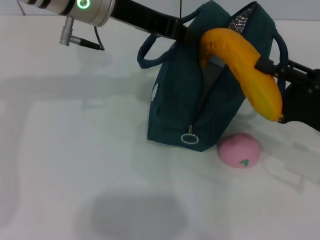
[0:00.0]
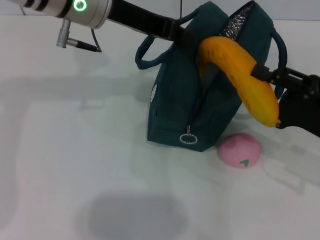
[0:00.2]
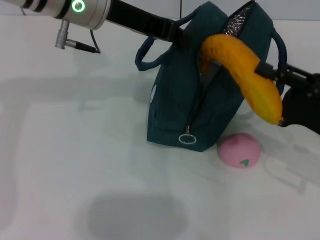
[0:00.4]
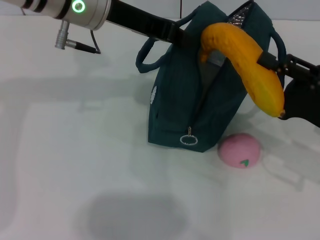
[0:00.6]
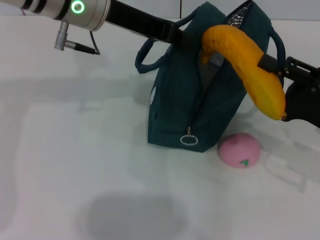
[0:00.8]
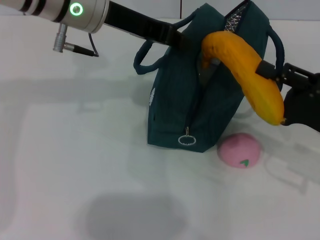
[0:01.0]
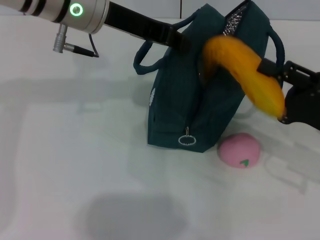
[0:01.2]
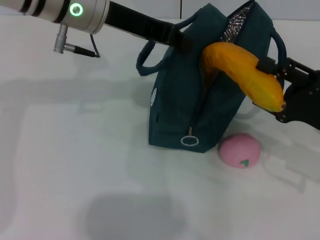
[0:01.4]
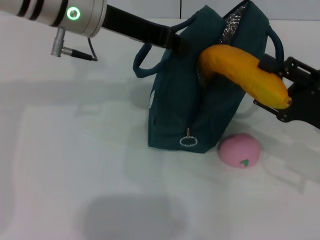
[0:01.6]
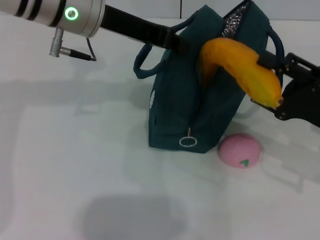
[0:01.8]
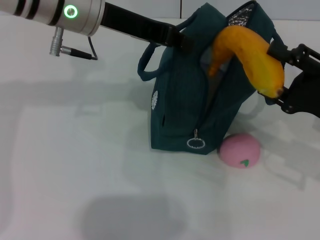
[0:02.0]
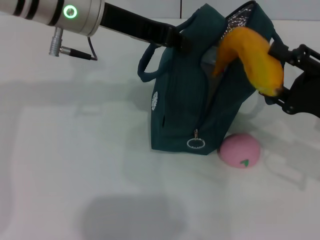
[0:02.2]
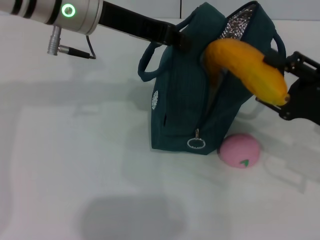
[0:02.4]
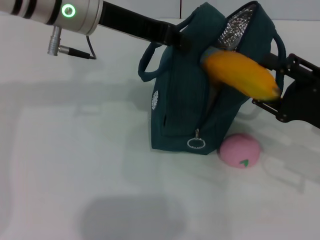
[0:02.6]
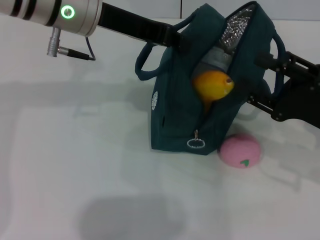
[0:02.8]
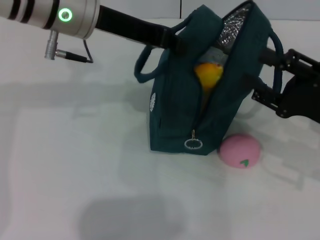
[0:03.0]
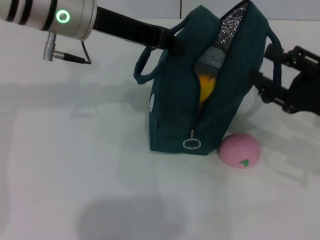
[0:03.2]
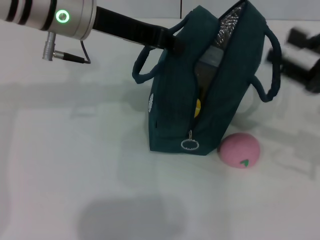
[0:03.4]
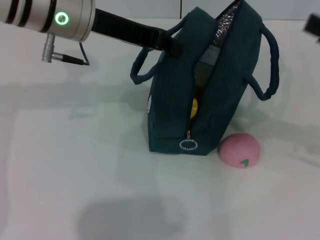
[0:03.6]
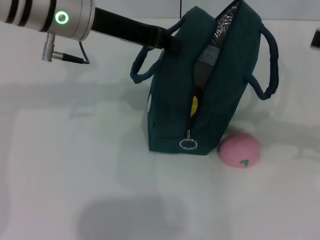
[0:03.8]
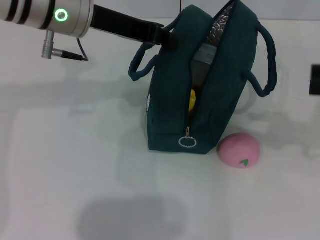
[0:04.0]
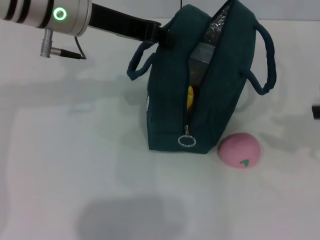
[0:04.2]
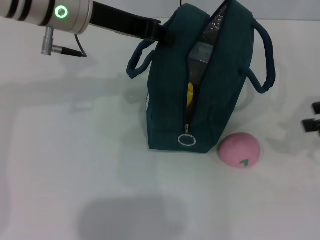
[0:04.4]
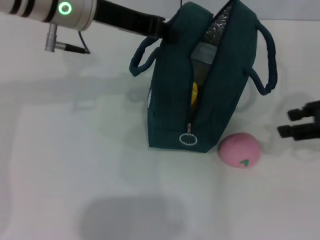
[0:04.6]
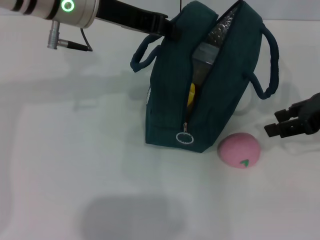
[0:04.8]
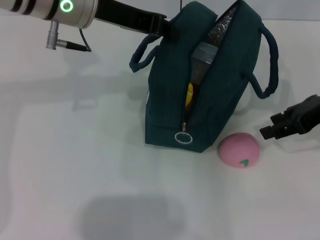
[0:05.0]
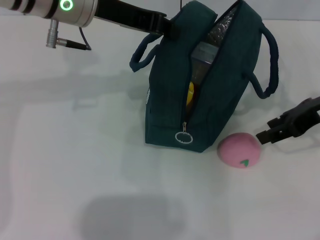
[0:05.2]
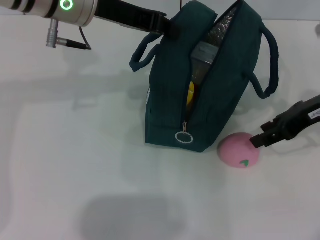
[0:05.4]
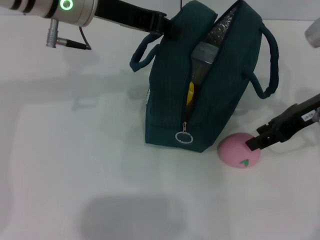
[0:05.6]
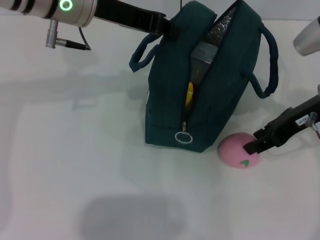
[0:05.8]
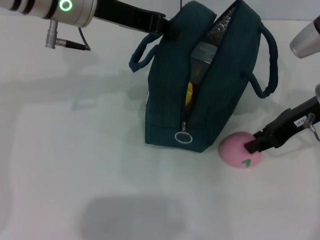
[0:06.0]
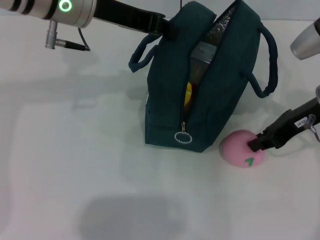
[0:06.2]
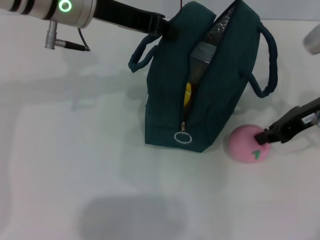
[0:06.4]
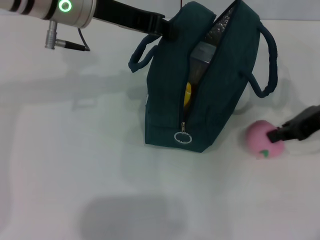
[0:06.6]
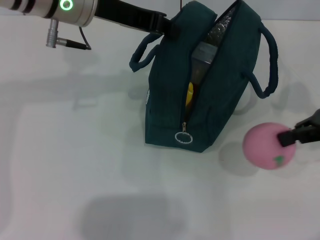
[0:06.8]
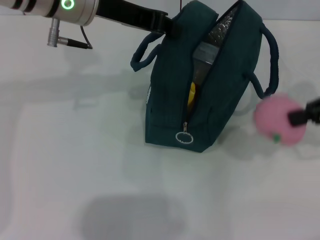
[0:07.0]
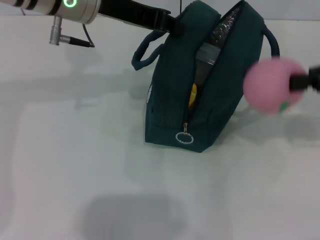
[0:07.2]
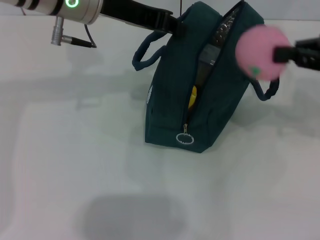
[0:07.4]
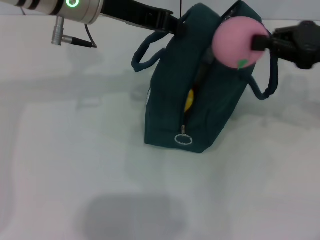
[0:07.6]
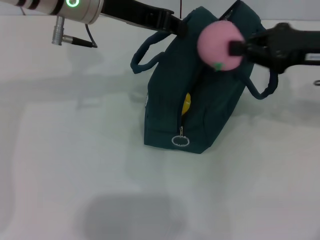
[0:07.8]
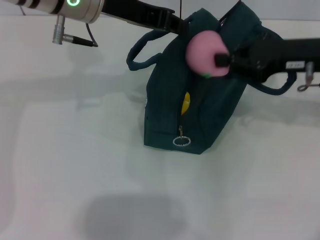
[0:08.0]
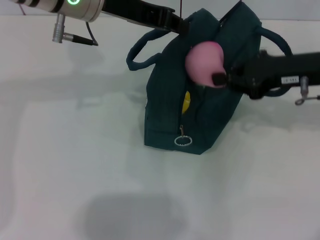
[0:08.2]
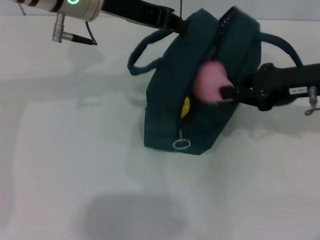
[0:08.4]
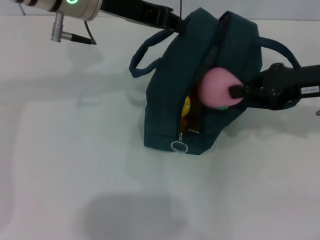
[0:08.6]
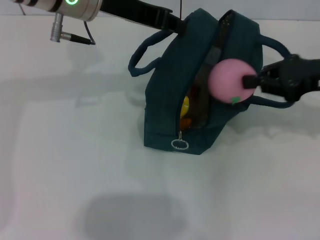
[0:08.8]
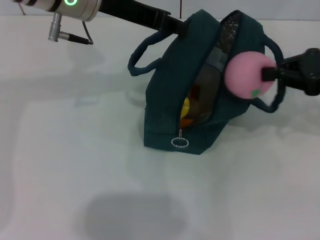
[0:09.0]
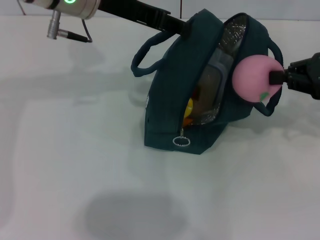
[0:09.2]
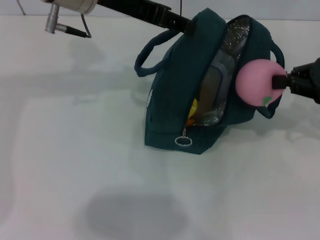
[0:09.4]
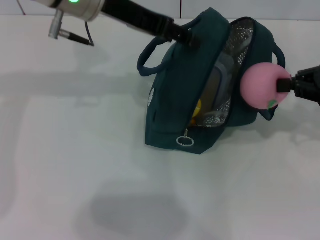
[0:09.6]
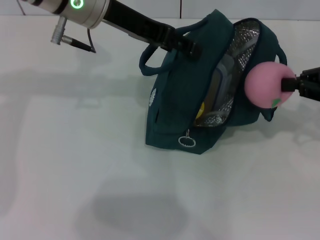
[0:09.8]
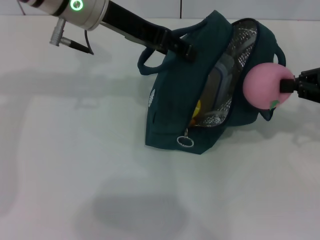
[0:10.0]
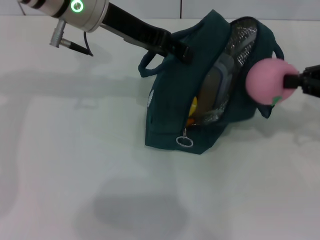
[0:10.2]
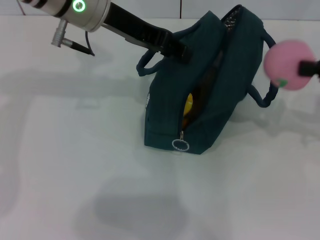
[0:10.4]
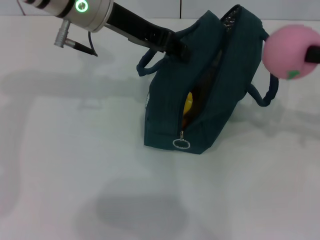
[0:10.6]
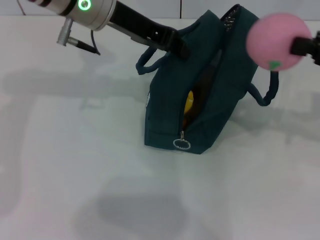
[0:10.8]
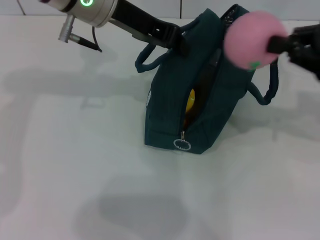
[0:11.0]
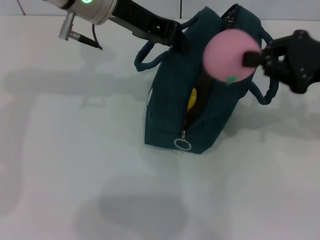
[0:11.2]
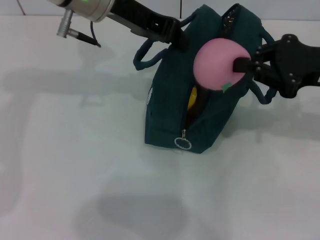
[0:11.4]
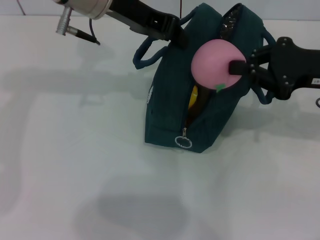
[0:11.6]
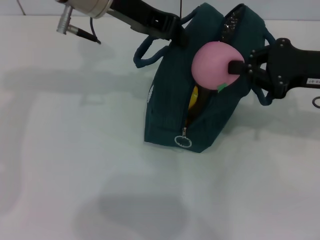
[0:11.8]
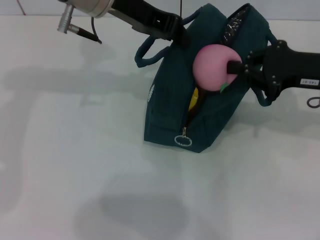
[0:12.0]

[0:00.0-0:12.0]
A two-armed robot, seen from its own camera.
Step, 0:00.0 to 0:03.6: Put the banana into the lunch bag with your right hand.
Step, 0:03.8 to 0:06.0: Grab the peach with your right hand.
0:00.0 to 0:03.0: There are only small adjustments of the grippers.
0:03.0 to 0:04.4: The right gripper goes about 10 cm upward and to the right.
0:04.4 to 0:06.0: The right gripper shifts approximately 10 cm to the left and forward.
0:06.0 to 0:07.6: The right gripper shifts some 5 cm to the right, and closes its fingers.
0:07.6 to 0:09.0: The grippers stay close to where they were, moving slightly.
0:09.0 to 0:10.4: The right gripper changes place by about 5 cm. Meanwhile the left gripper opens its fingers.
0:10.4 to 0:12.0: The left gripper closes up, while the right gripper shifts roughly 10 cm to the left.

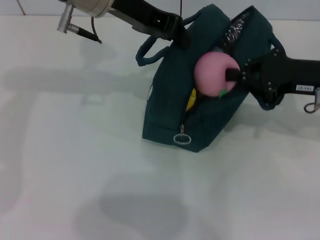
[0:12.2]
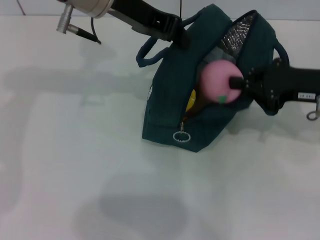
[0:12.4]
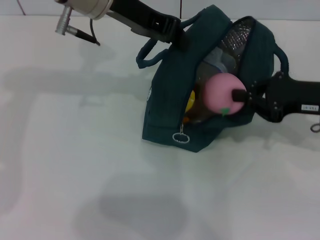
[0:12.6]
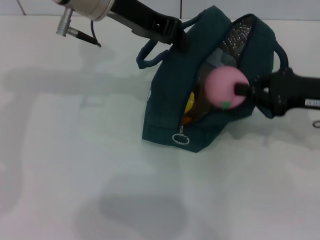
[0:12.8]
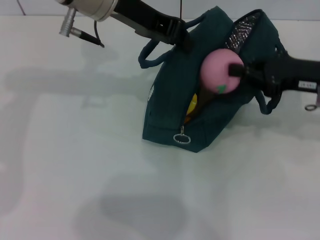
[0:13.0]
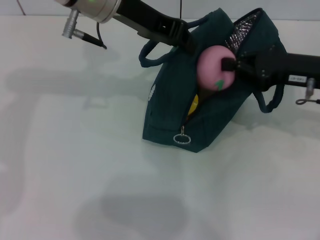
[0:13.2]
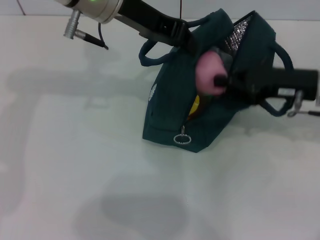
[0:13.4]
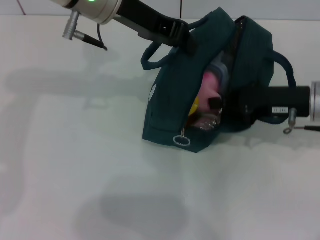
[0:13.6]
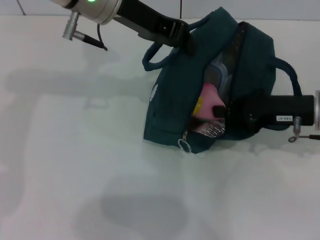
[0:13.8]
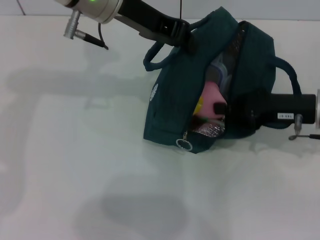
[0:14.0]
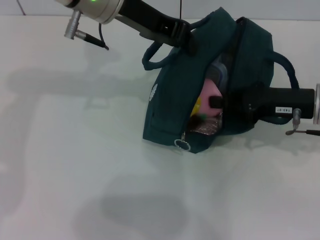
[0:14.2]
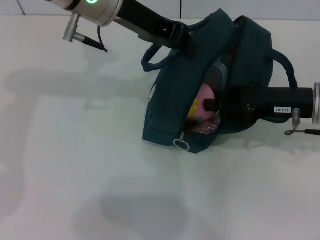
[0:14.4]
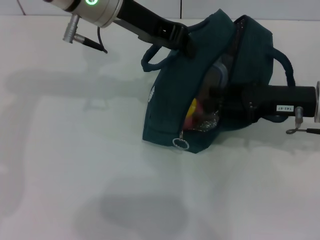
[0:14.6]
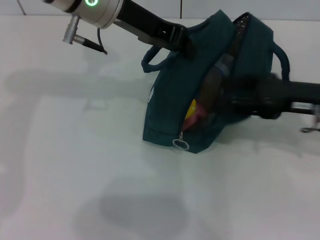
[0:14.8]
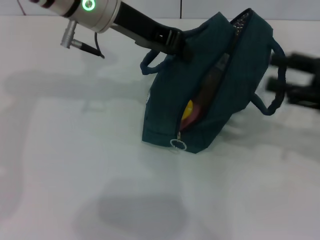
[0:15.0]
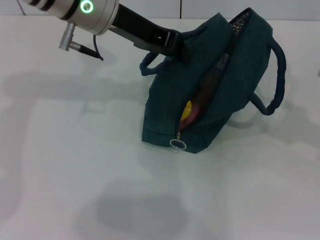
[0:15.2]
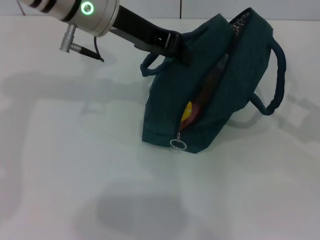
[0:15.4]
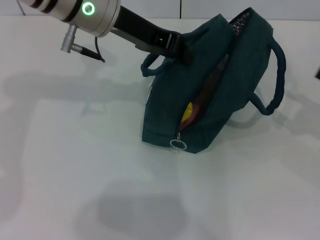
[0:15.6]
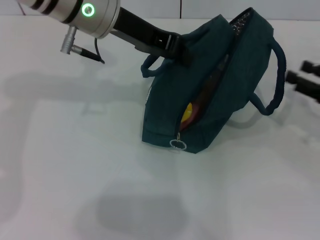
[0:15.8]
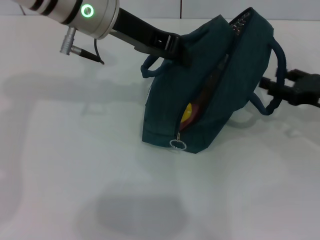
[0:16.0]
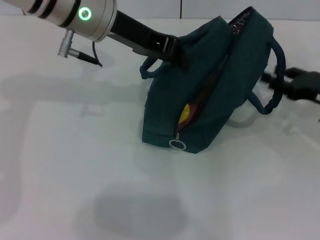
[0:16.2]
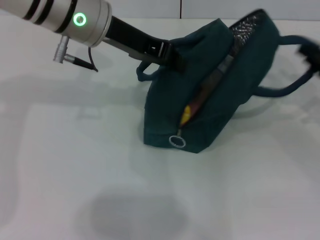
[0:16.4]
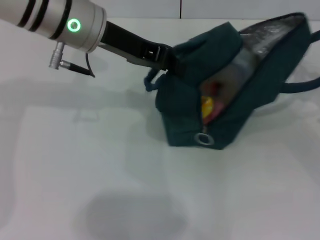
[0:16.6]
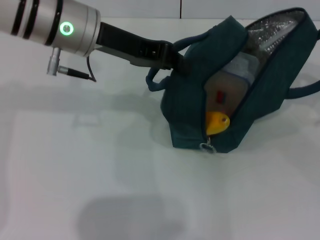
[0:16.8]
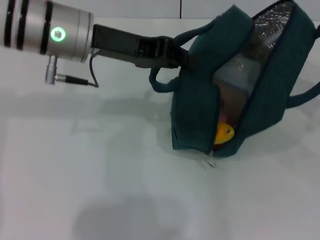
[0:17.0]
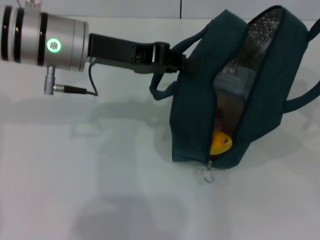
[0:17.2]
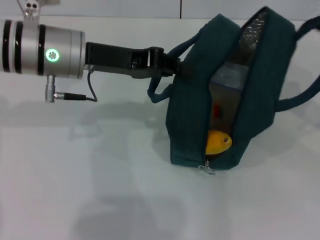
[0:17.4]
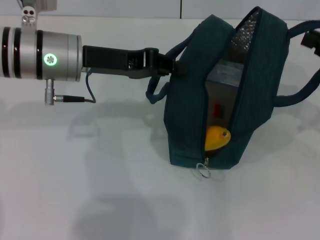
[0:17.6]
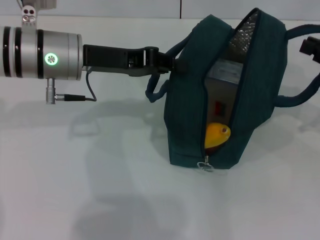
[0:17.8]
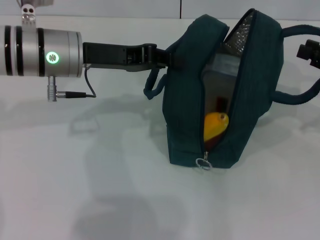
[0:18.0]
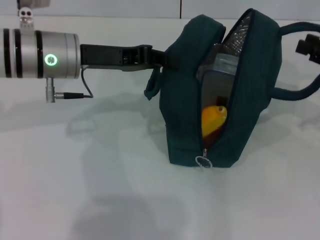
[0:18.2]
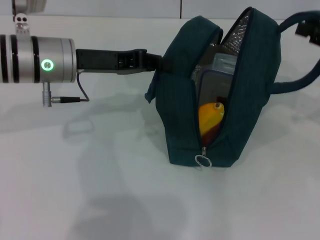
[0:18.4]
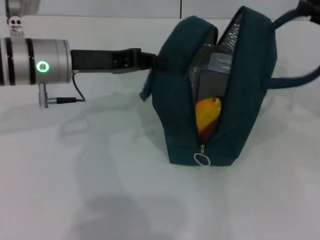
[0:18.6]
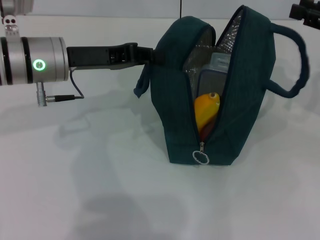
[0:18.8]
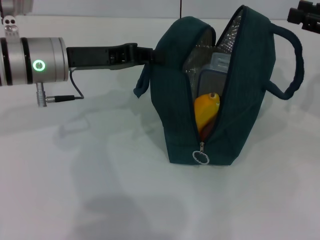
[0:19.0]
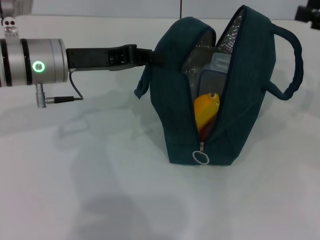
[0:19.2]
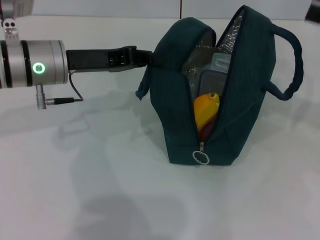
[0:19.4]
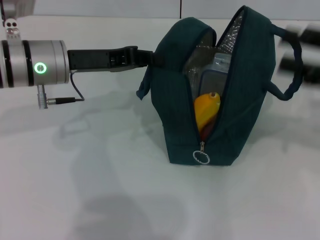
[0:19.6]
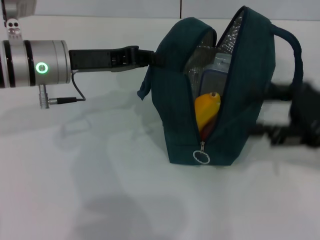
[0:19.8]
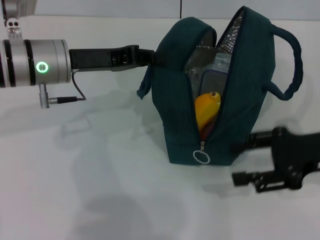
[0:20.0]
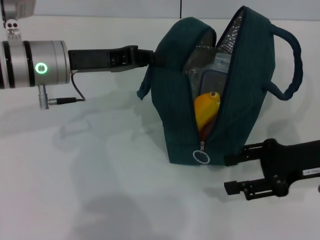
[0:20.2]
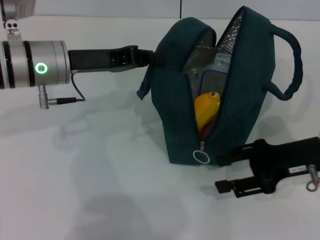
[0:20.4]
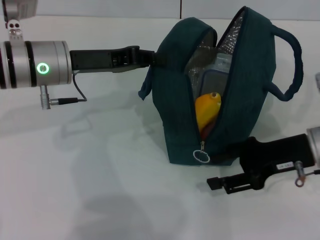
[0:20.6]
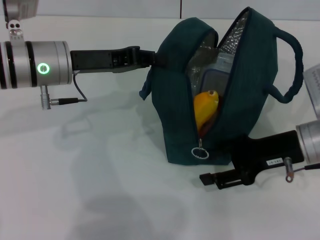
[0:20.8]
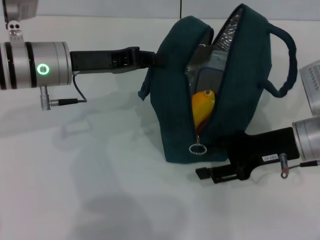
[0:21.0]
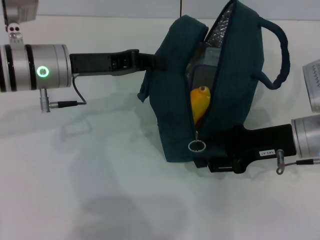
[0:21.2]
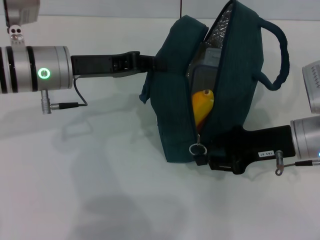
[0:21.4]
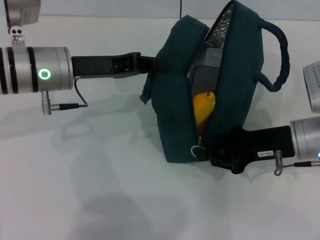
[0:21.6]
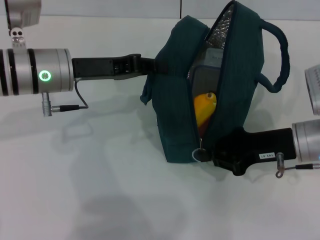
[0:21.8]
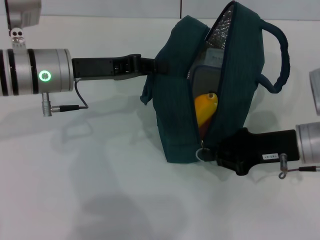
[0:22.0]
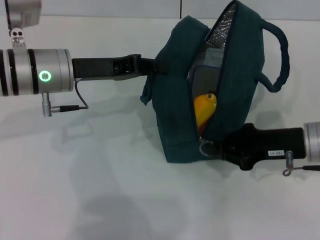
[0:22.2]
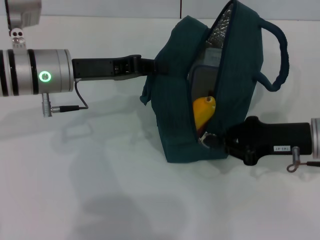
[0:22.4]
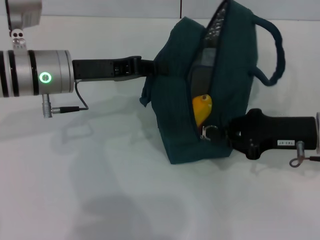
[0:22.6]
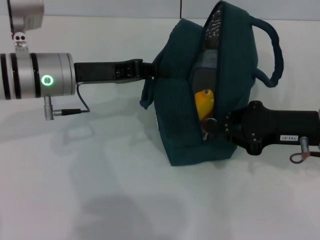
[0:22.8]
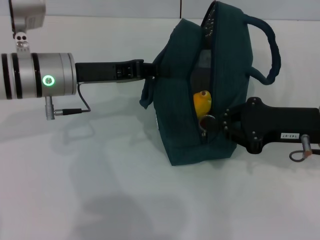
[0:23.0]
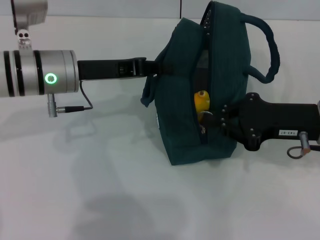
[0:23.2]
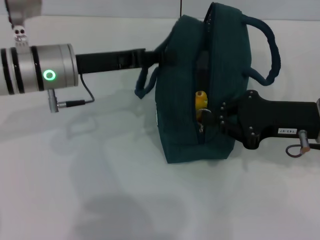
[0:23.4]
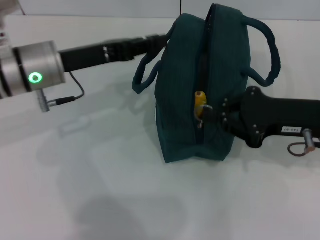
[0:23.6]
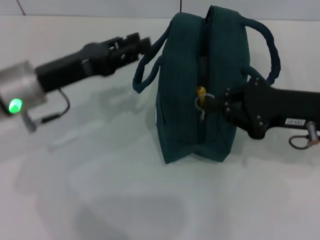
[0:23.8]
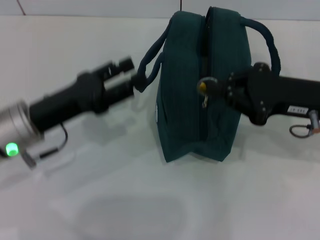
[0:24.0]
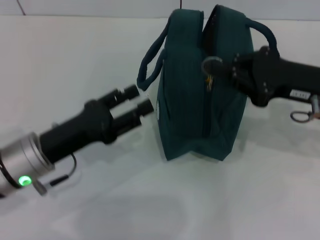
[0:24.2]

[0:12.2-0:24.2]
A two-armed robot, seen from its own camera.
Step, 0:15.0 to 0:18.6: Hold the lunch bag with your right hand.
Step, 0:18.8 to 0:23.6: Hold the lunch bag with your left hand.
0:12.2 to 0:13.8: The grippers stay close to where they were, moving slightly.
0:13.8 to 0:15.2: The right gripper heads to the right and backward, covering roughly 15 cm, and opens.
0:15.2 to 0:16.6: The right gripper heads downward, covering some 5 cm, and closes its fingers.
0:16.6 to 0:18.2: The right gripper moves upward, approximately 5 cm, while the left gripper shifts approximately 5 cm downward.
0:18.2 to 0:19.8: The right gripper shifts some 5 cm to the left.
0:19.8 to 0:21.2: The right gripper goes about 10 cm downward and to the left.
0:21.2 to 0:22.6: The right gripper closes its fingers.
0:22.6 to 0:24.2: The left gripper goes roughly 15 cm backward and downward, and opens up.
